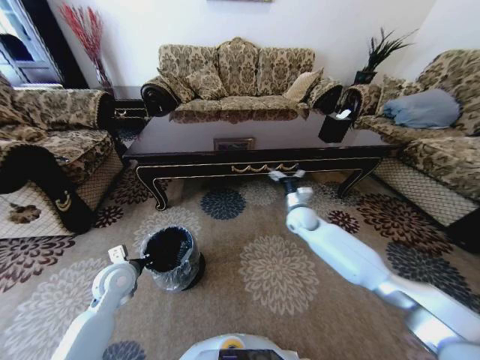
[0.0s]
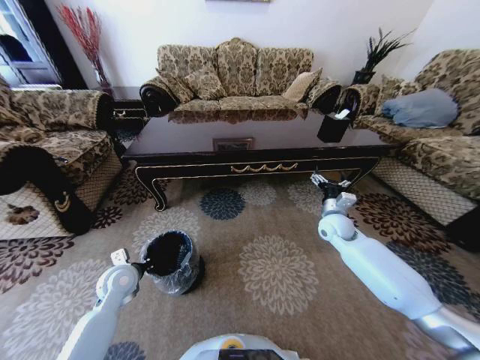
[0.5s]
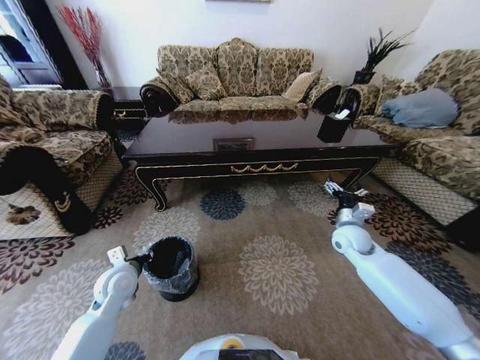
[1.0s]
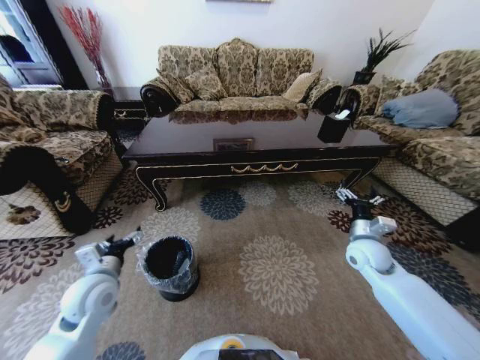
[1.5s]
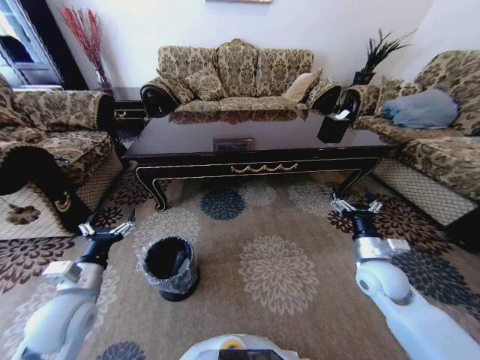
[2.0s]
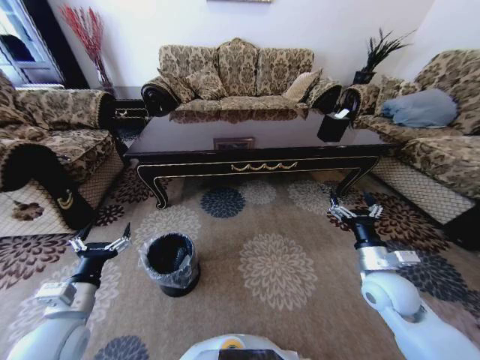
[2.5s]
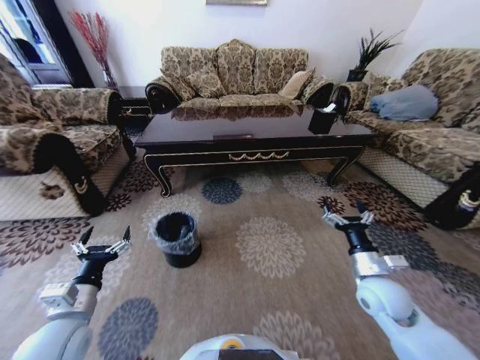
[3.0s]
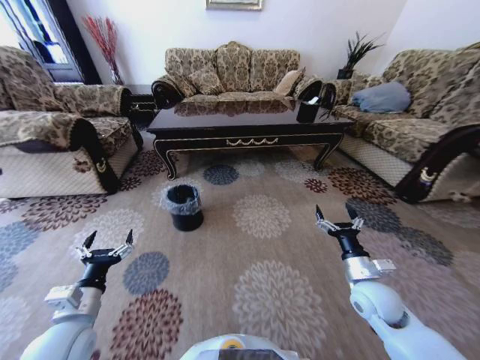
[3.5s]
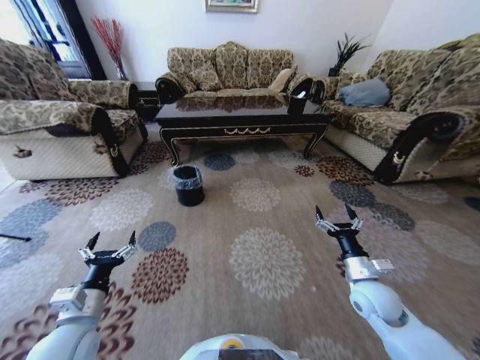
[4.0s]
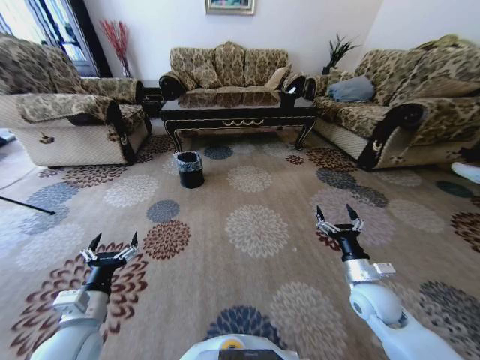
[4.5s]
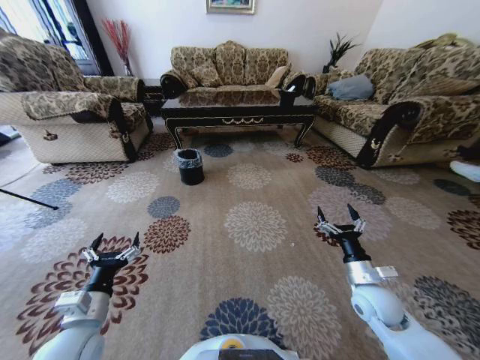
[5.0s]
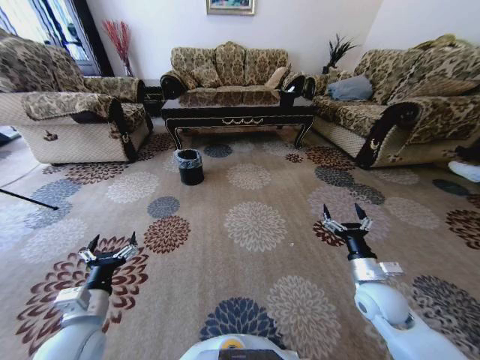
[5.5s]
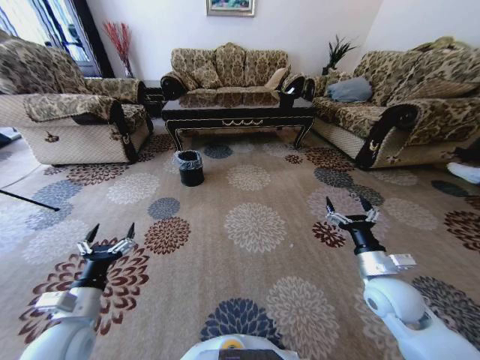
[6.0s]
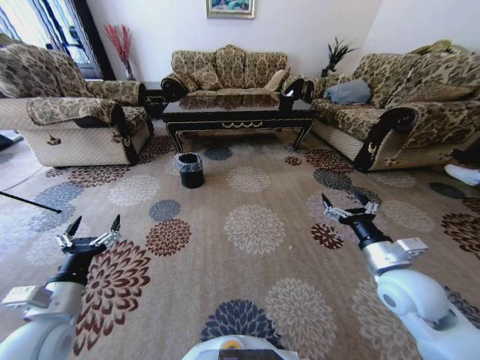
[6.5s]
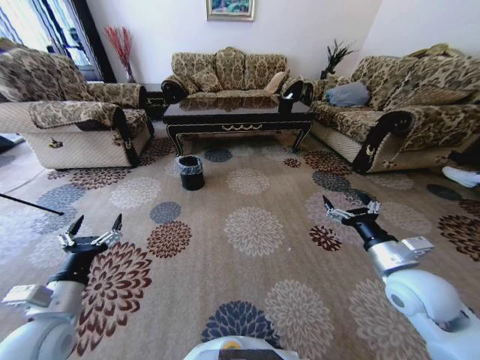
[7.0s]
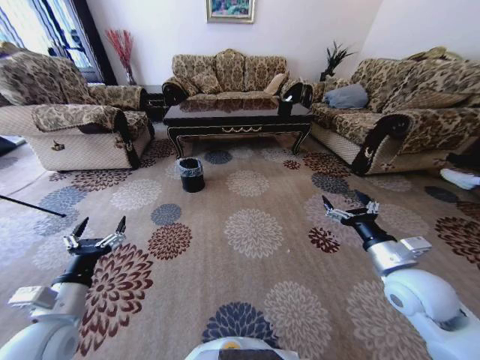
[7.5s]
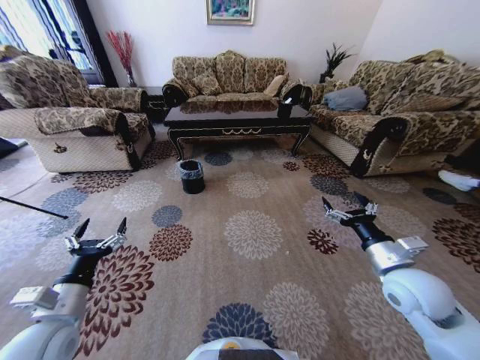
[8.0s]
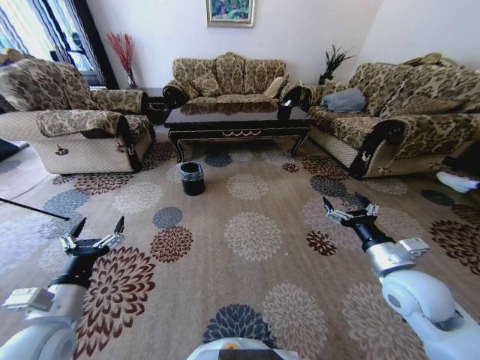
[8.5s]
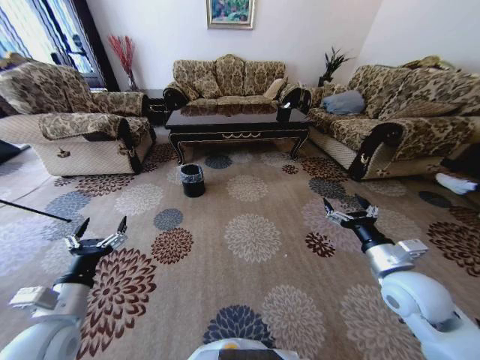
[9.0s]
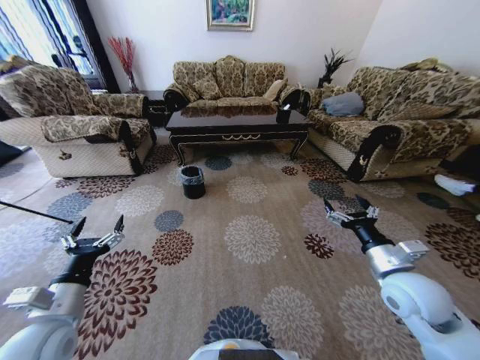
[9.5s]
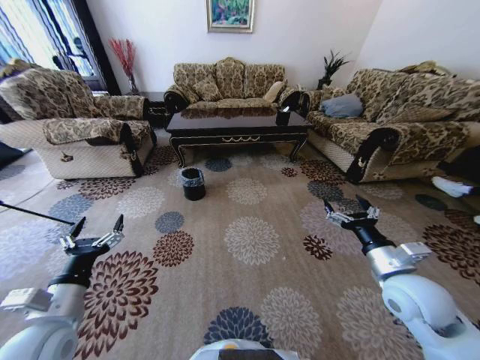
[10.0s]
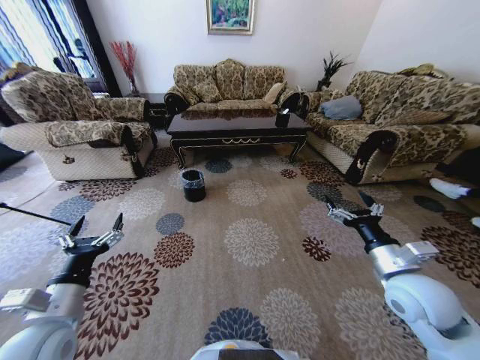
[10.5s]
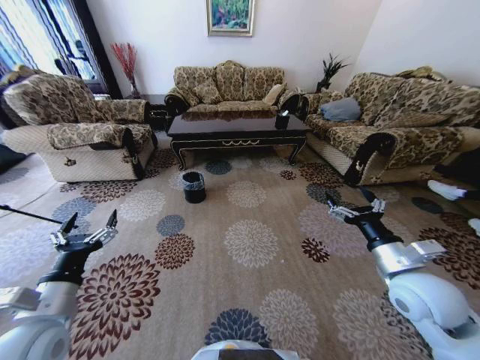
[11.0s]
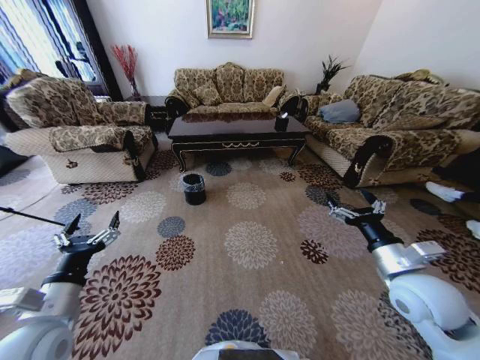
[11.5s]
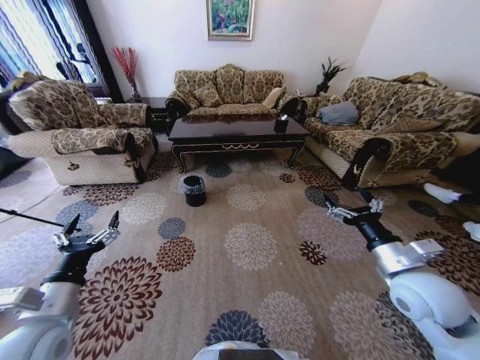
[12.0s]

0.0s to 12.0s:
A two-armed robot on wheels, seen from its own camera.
Task of the whole recording: Move to the front of the table and pick up the trash from the floor, then place it into the trash bin.
0.0s to 2.0s: The left gripper goes roughly 10 cm backward and upward, and opens. The right gripper heads backward and to the right, covering approximately 25 cm.
2.0s to 4.0s: The left gripper shifts by roughly 5 cm. Meanwhile the right gripper changes place by approximately 5 cm.
6.0s to 8.0s: The right gripper shifts about 5 cm upward.

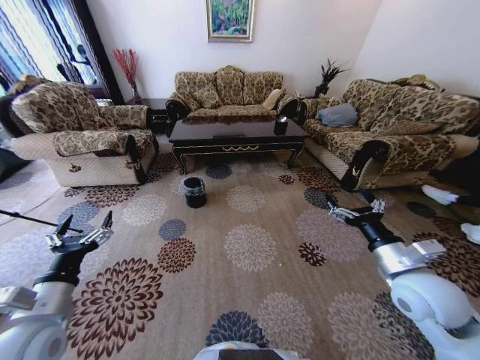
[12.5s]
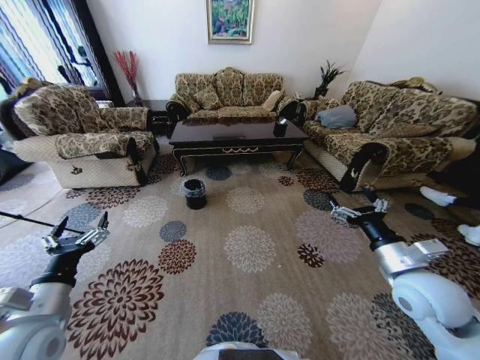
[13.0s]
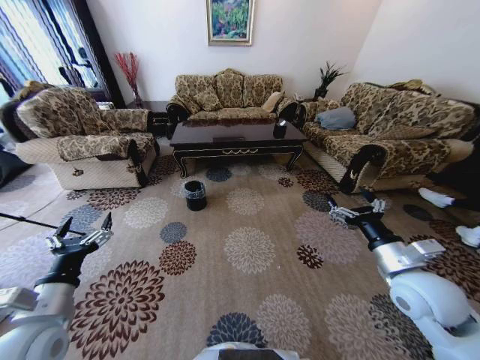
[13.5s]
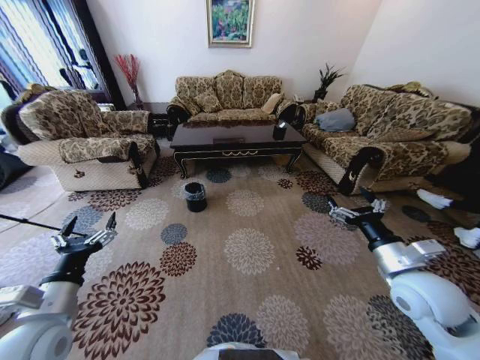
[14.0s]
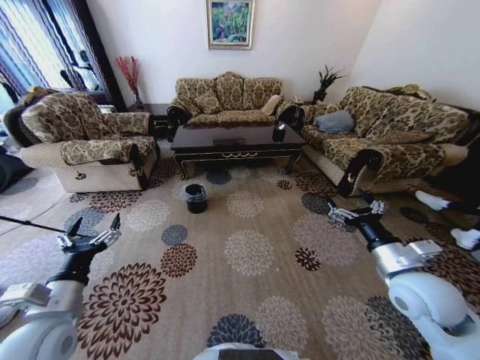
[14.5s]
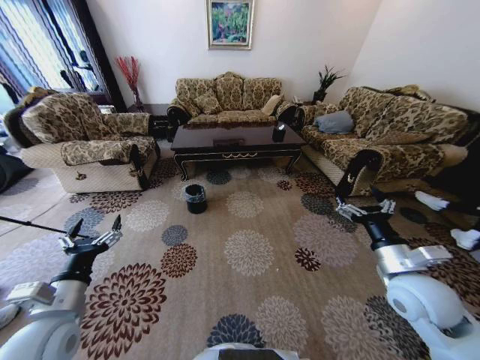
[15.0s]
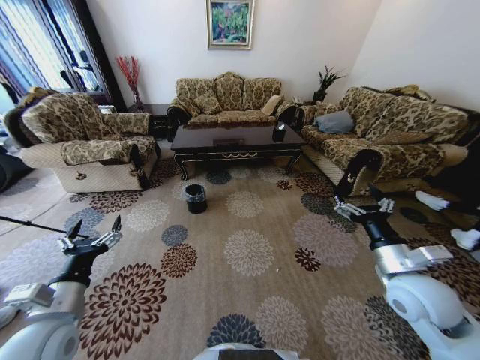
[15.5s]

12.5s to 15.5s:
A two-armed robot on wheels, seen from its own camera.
Task of the whole recording: Move to the front of the table and pick up the trash from the floor, then place it into the trash bin.
14.0s to 15.5s: There are only small adjustments of the grippers.

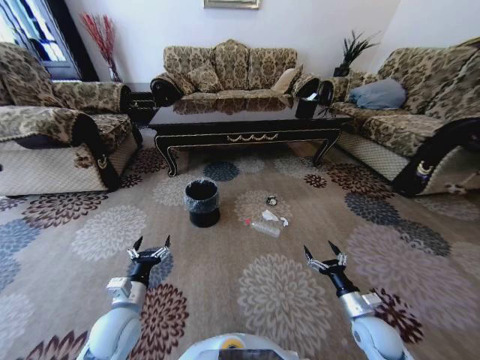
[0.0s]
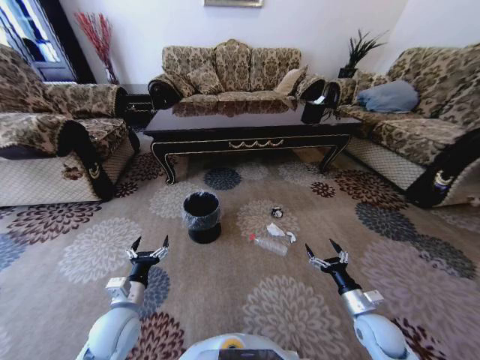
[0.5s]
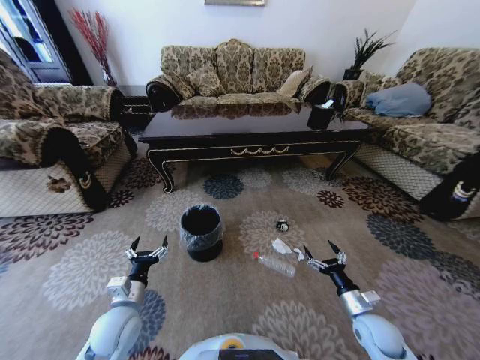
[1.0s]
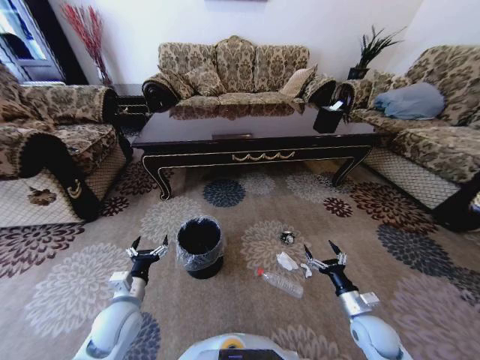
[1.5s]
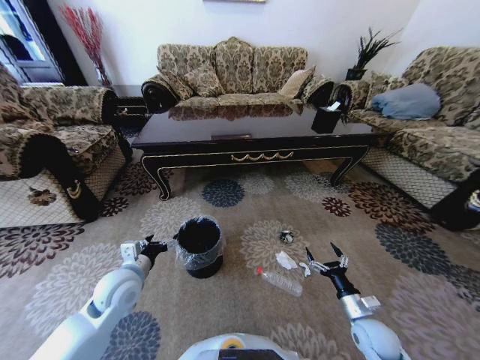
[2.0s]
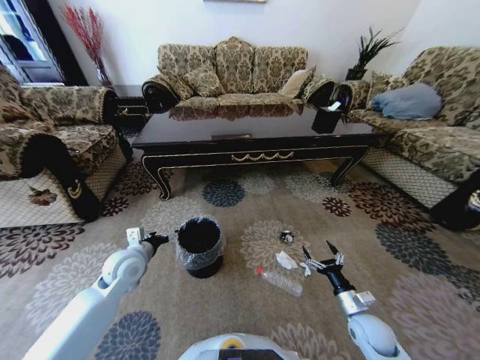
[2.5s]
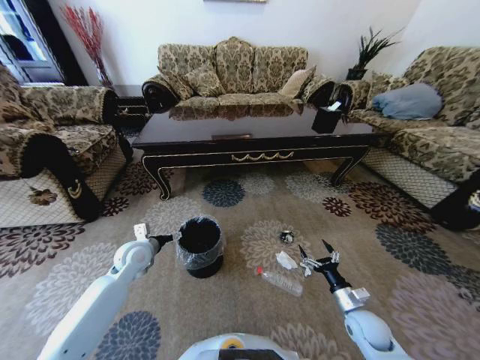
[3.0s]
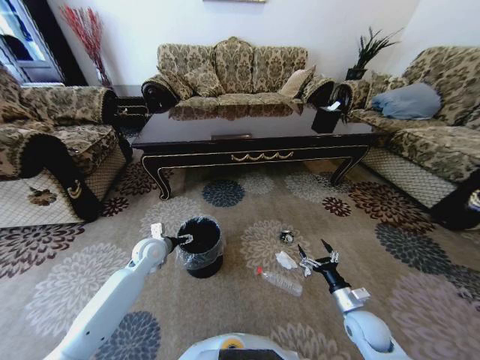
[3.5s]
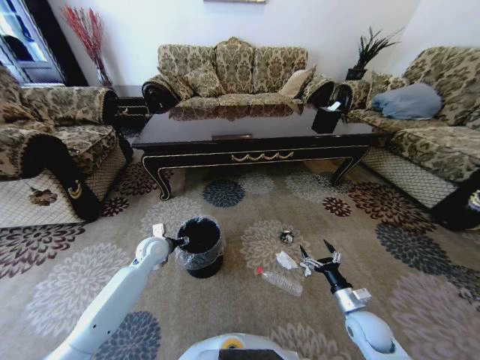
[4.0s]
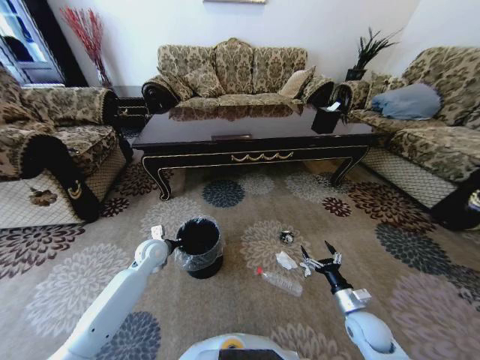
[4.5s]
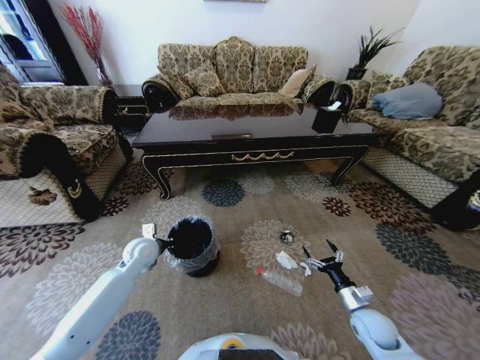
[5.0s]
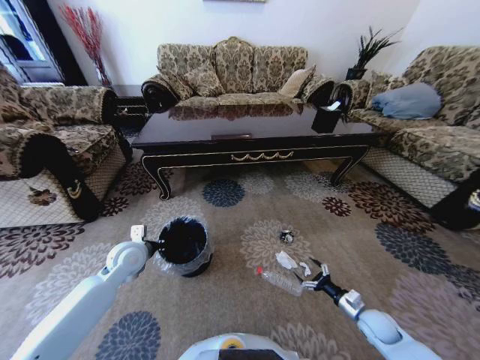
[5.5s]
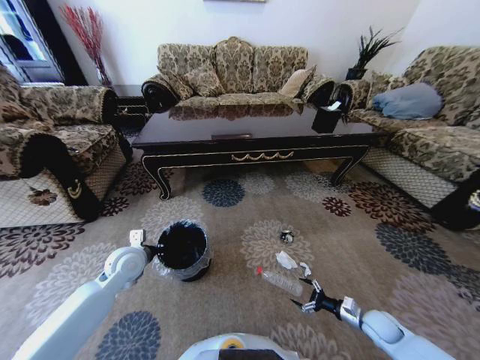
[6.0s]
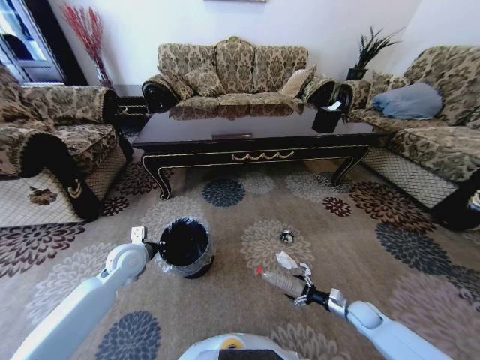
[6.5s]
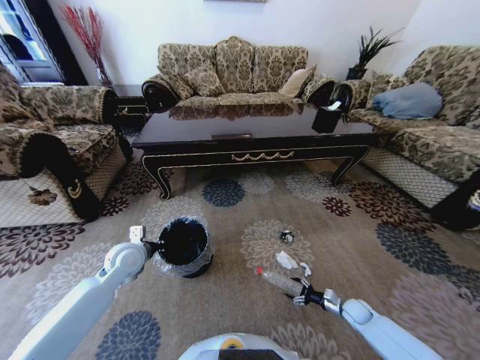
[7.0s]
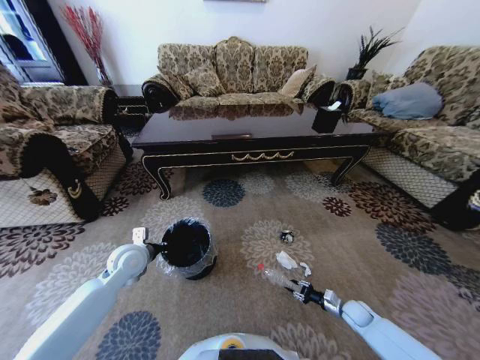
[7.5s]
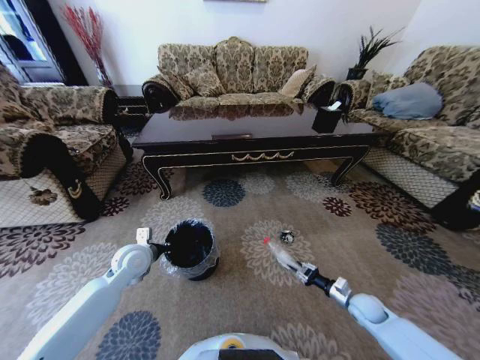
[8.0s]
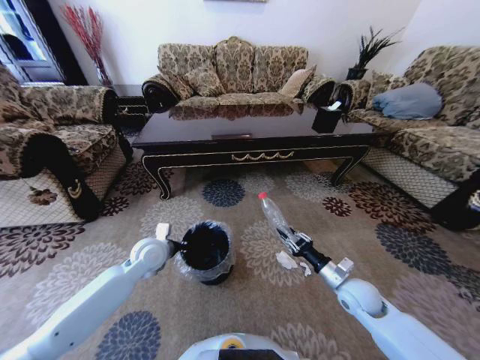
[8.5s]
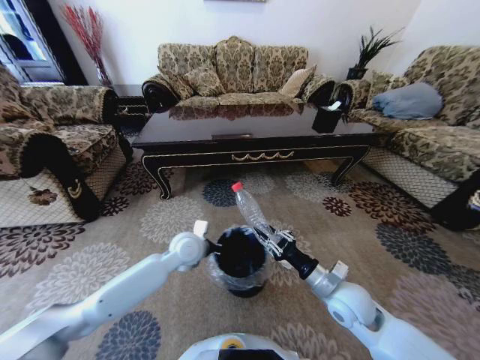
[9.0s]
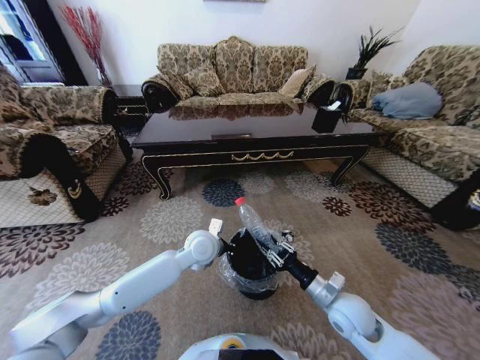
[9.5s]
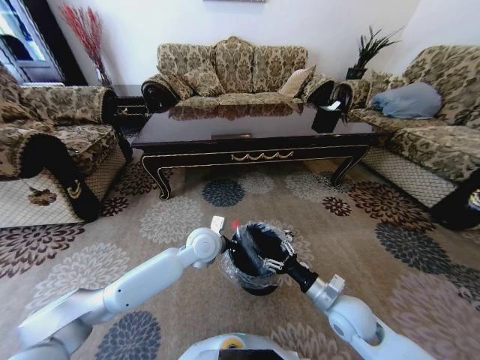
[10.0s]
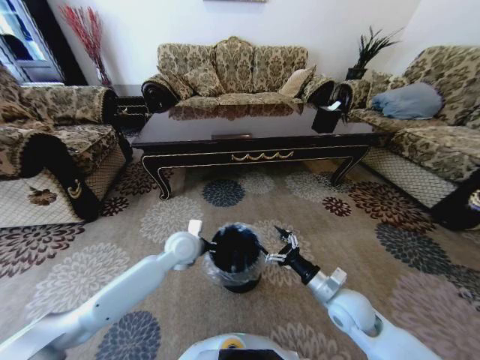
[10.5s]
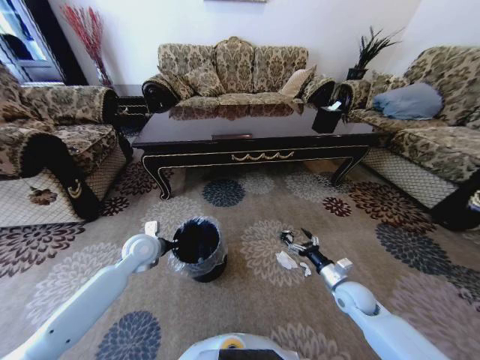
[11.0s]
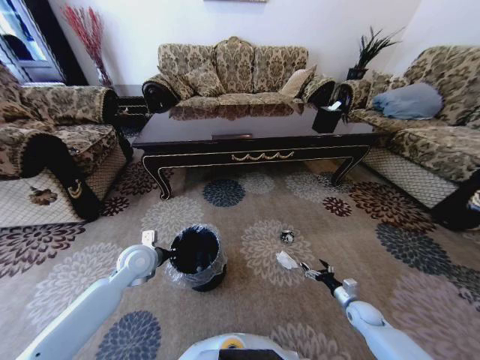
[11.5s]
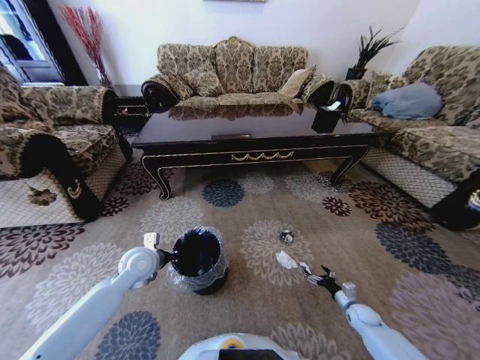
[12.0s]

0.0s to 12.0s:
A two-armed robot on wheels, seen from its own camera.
Task of the whole recording: Move to the front of the table and pick up the trash from the floor, then place it into the trash bin.
0.0s to 2.0s: The left gripper moves forward and upward, roughly 10 cm.
2.0s to 4.0s: The left gripper is displaced forward and downward by roughly 15 cm.
4.0s to 6.0s: The right gripper shifts roughly 10 cm to the right and downward; the left gripper goes some 5 cm backward, and closes.
6.0s to 8.0s: The right gripper goes downward and returns, some 5 cm each way, and closes up.
8.0s to 10.0s: The right gripper moves to the left and upward, roughly 20 cm, and opens its fingers, while the left gripper shifts roughly 20 cm to the right.
10.0s to 12.0s: The left gripper travels to the left by approximately 20 cm; the right gripper moves downward and to the right, roughly 30 cm.
